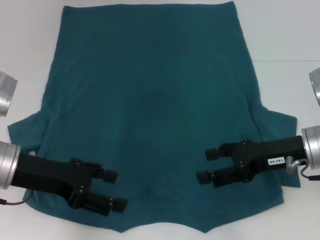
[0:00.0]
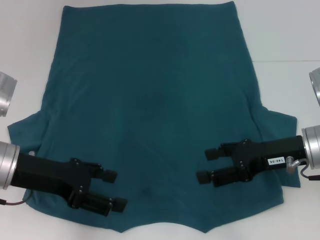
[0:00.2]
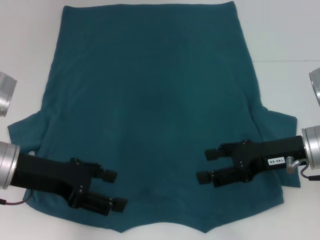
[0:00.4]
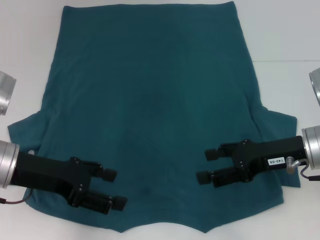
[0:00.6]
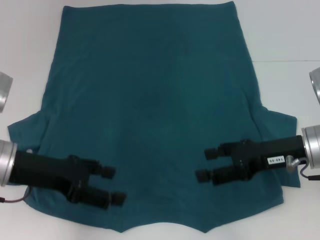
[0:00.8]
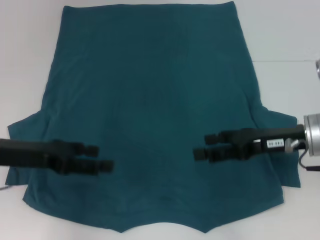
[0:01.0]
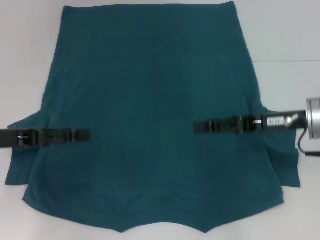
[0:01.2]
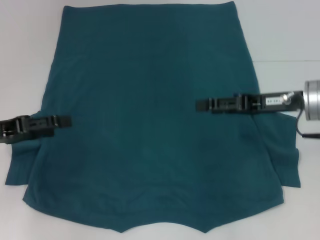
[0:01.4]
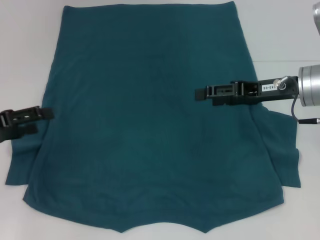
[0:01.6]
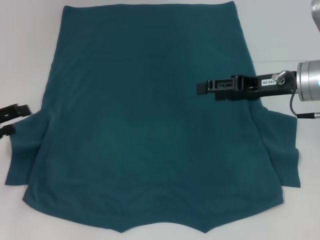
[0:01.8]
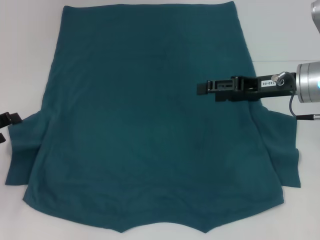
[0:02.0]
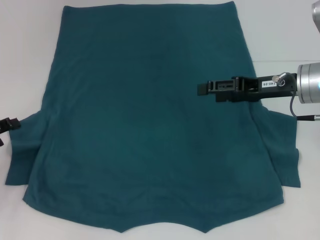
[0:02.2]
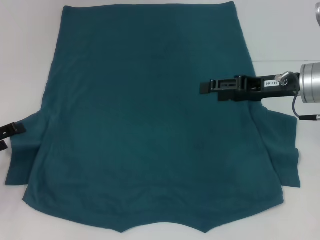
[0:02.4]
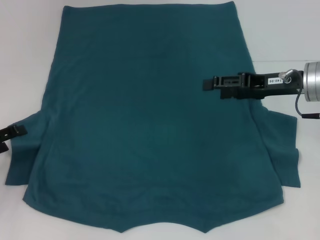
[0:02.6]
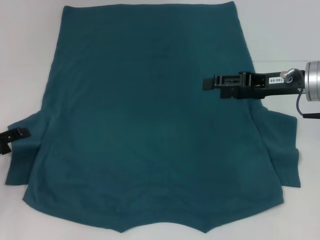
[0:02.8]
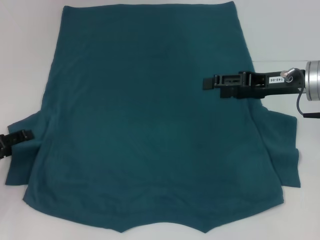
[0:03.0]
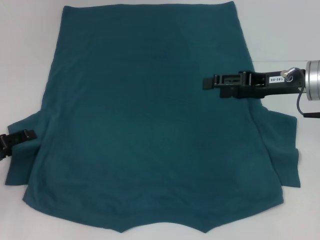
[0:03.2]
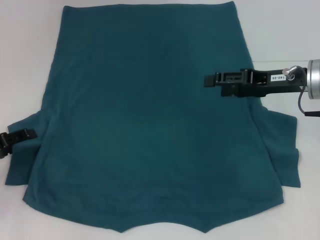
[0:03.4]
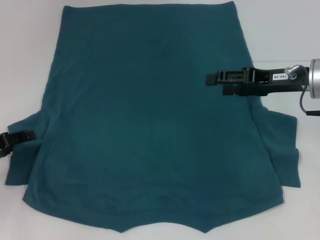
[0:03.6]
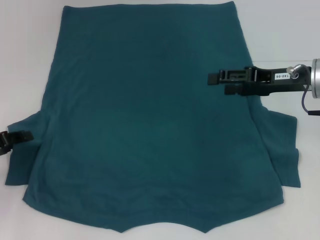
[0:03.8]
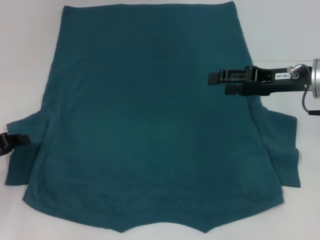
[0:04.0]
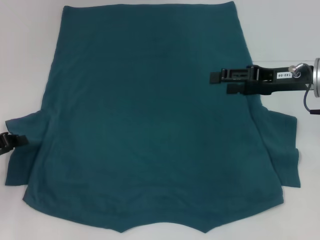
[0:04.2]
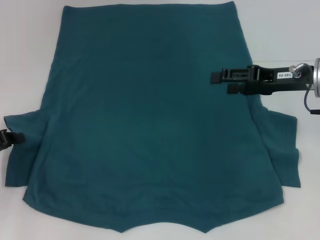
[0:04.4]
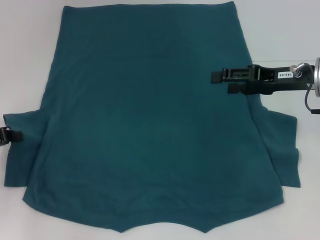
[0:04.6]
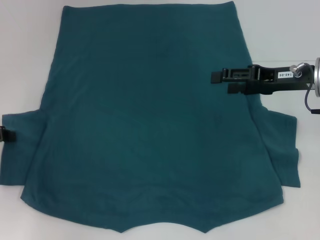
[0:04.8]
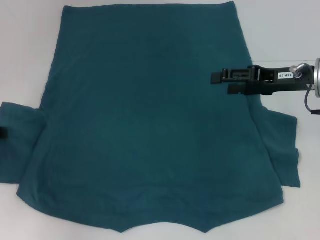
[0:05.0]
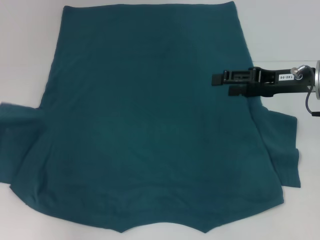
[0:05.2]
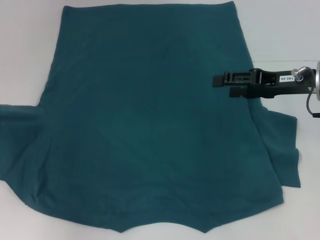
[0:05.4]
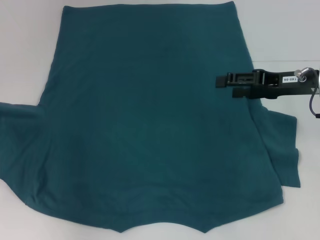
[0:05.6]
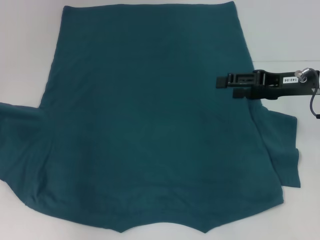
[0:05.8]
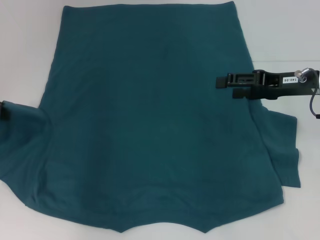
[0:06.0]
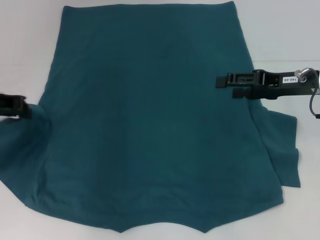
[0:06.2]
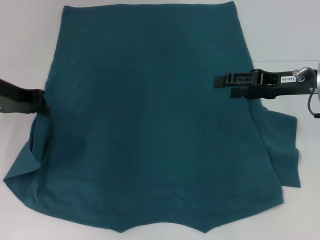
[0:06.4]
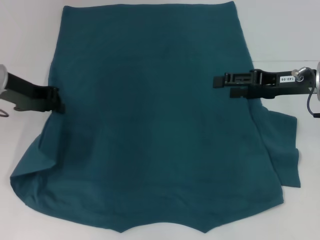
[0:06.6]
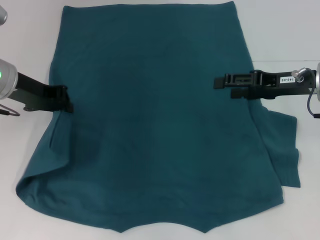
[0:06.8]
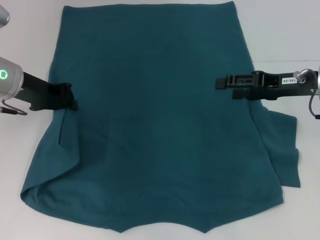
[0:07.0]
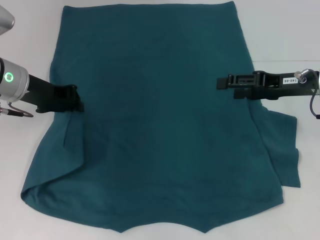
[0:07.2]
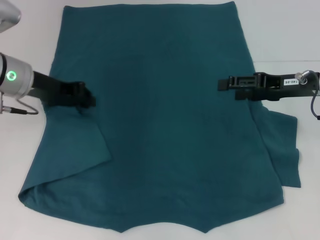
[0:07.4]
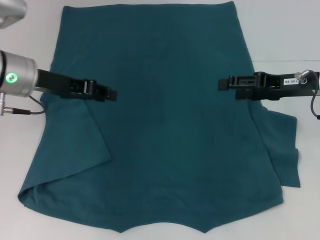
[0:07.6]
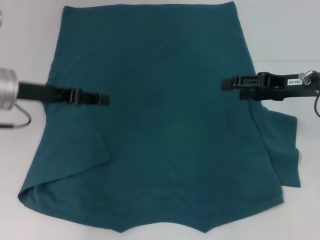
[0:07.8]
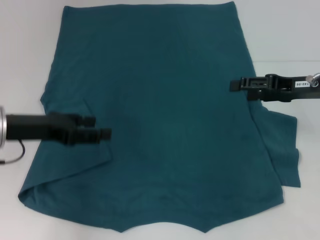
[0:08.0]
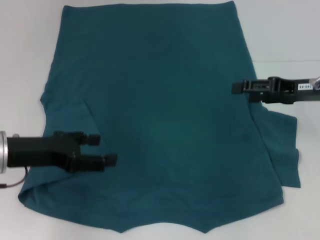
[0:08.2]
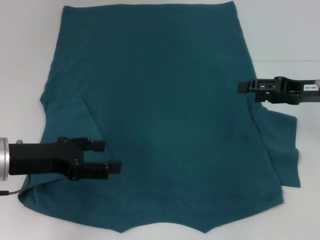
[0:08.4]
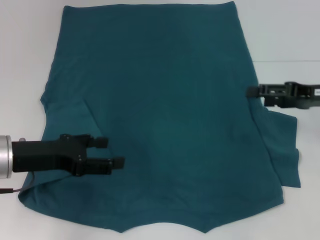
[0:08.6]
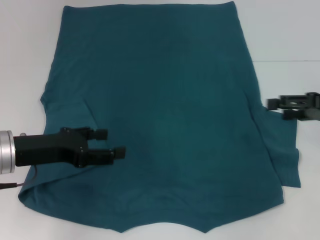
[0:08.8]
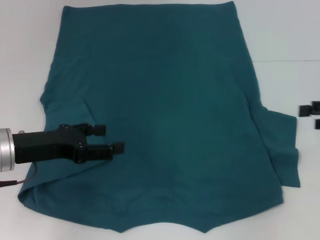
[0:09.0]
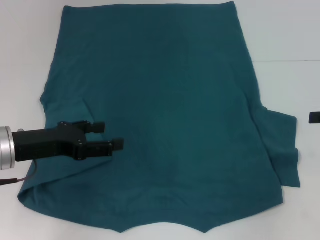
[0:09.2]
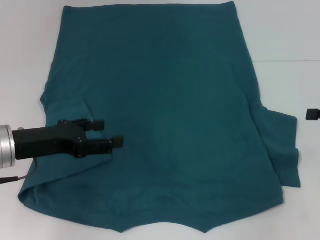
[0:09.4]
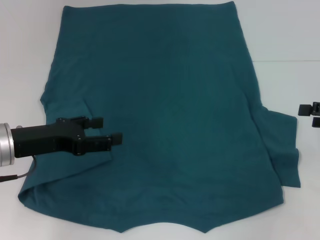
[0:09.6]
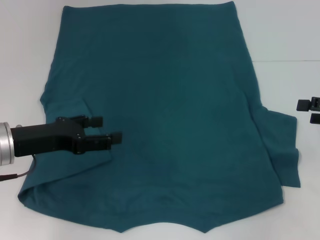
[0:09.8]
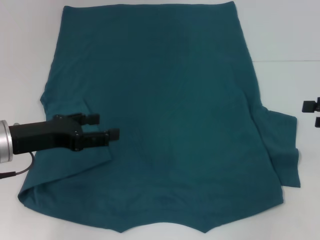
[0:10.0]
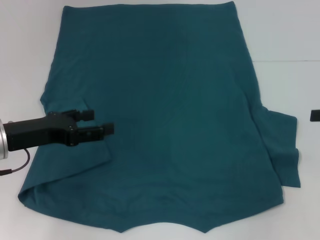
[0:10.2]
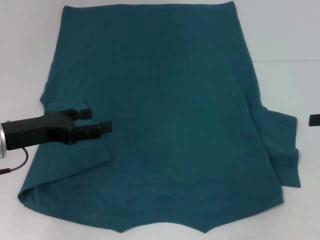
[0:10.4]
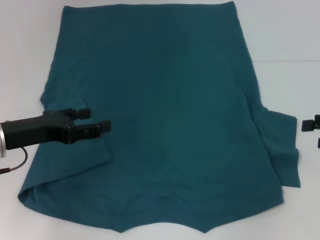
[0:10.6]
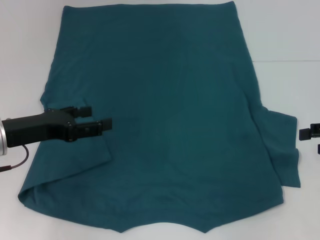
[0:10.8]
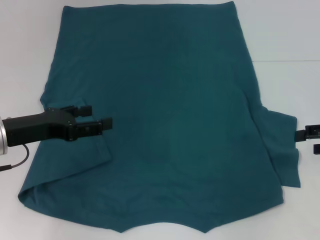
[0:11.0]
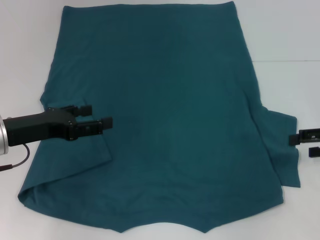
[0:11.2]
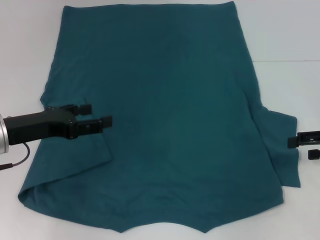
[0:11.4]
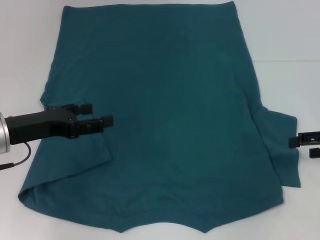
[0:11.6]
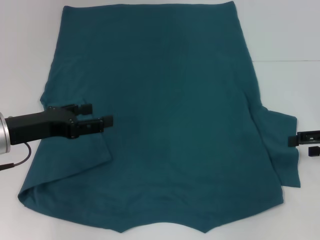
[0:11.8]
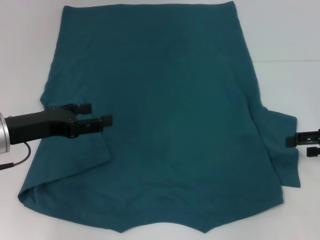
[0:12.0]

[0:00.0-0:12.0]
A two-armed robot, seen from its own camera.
Step, 0:00.0 to 0:07.4: Fold the bottom left sleeve with your left hand.
0:00.0 to 0:01.6: The right gripper moves forward, about 5 cm. The left gripper travels to the left by approximately 10 cm.
0:01.6 to 0:03.0: The left gripper goes about 5 cm downward.
0:03.0 to 0:04.4: The left gripper closes up.
0:04.4 to 0:06.0: The left gripper shifts about 10 cm upward and forward.
0:06.0 to 0:07.6: The left gripper shifts approximately 10 cm to the right.
0:07.6 to 0:09.0: The left gripper shifts roughly 10 cm backward and downward, and opens, while the right gripper heads to the right and backward, covering approximately 15 cm.
0:09.0 to 0:12.0: There are only small adjustments of the grippers.

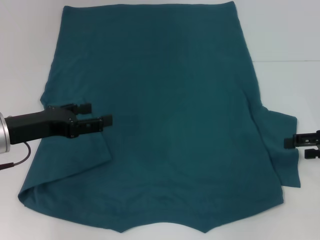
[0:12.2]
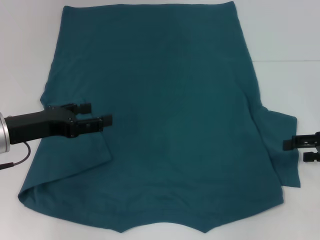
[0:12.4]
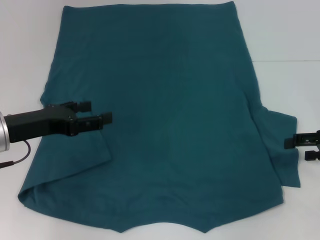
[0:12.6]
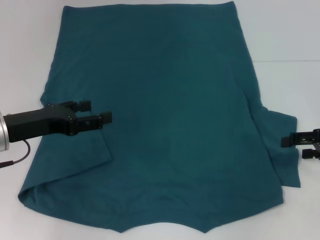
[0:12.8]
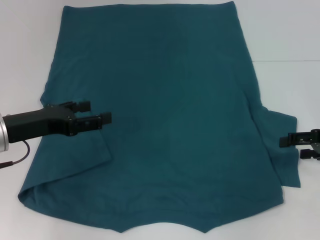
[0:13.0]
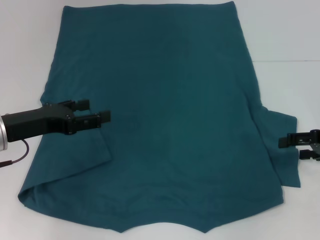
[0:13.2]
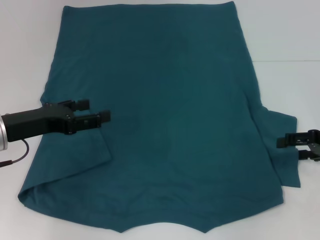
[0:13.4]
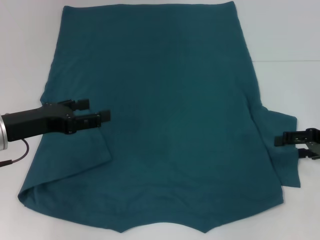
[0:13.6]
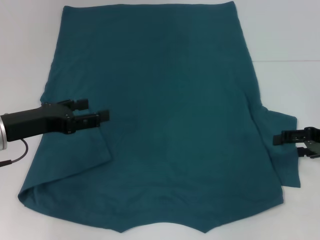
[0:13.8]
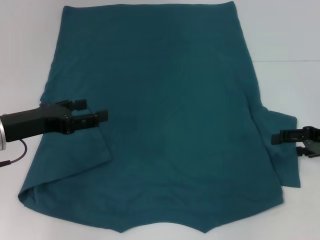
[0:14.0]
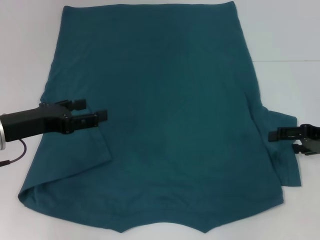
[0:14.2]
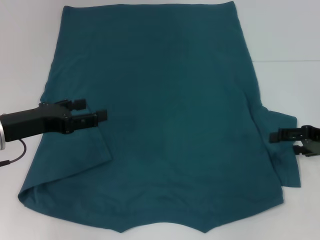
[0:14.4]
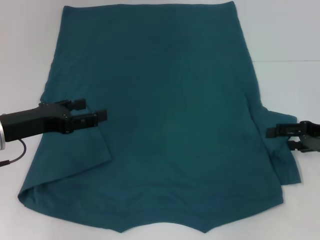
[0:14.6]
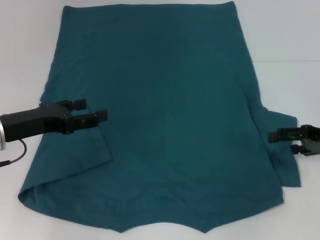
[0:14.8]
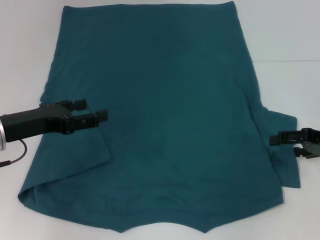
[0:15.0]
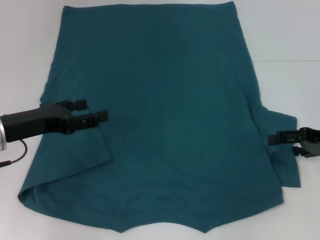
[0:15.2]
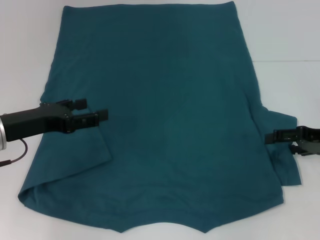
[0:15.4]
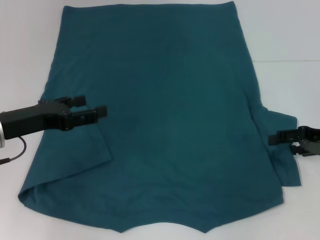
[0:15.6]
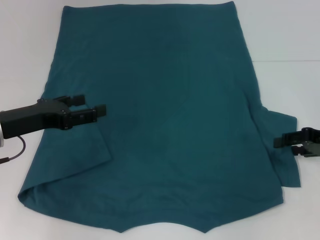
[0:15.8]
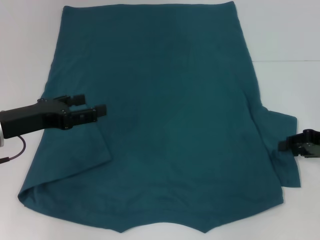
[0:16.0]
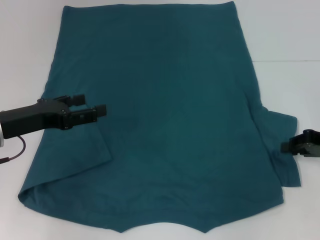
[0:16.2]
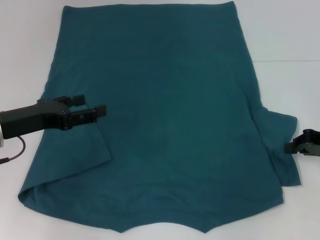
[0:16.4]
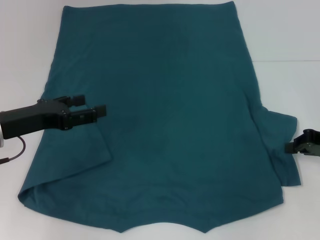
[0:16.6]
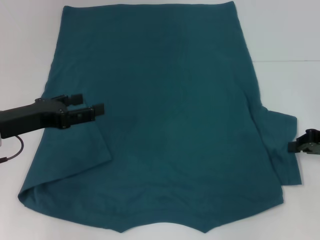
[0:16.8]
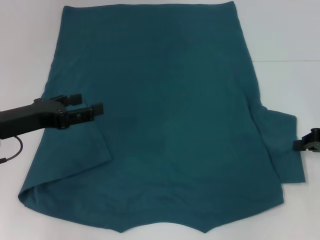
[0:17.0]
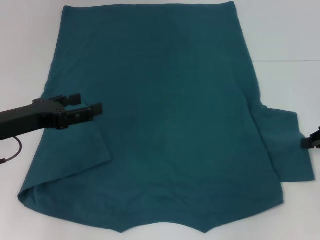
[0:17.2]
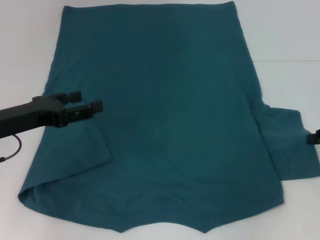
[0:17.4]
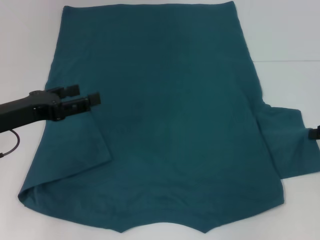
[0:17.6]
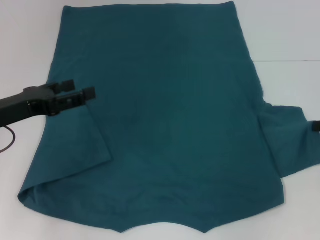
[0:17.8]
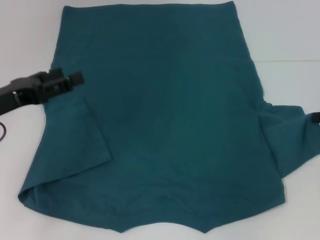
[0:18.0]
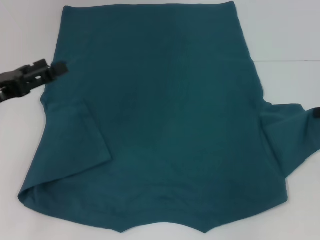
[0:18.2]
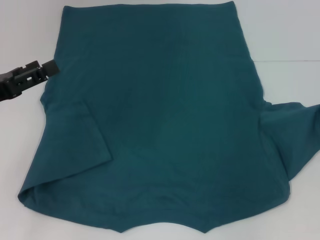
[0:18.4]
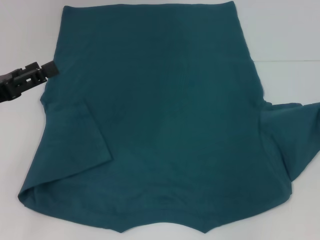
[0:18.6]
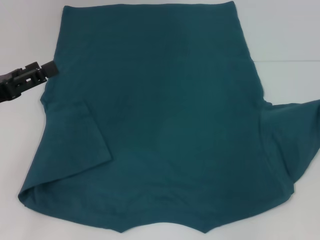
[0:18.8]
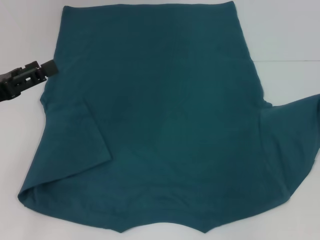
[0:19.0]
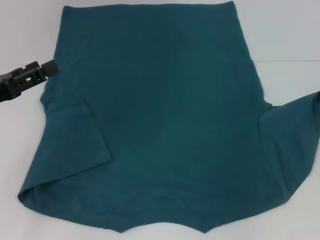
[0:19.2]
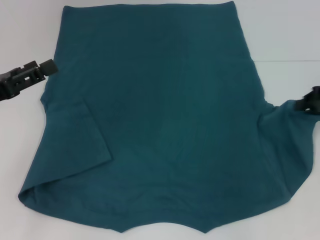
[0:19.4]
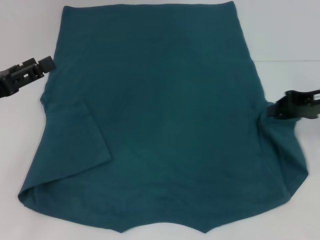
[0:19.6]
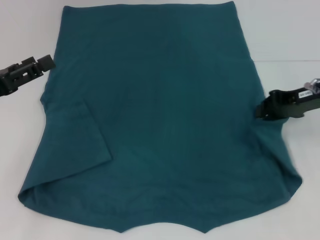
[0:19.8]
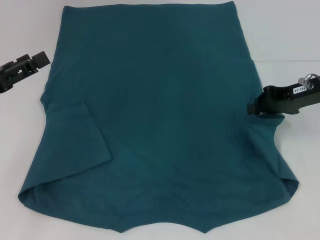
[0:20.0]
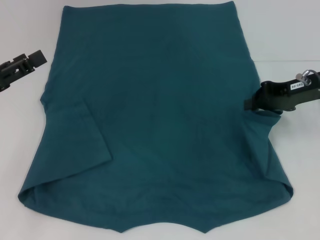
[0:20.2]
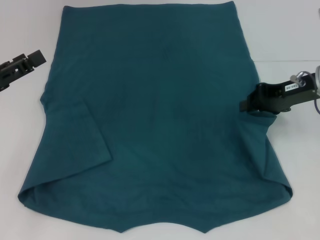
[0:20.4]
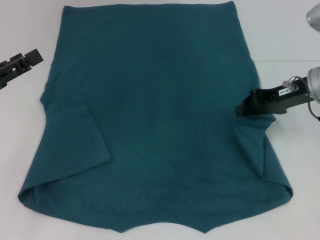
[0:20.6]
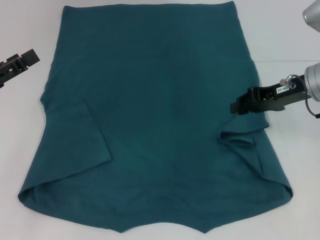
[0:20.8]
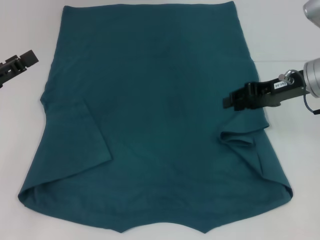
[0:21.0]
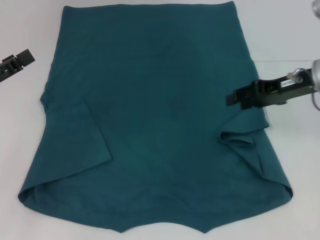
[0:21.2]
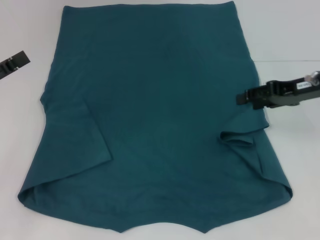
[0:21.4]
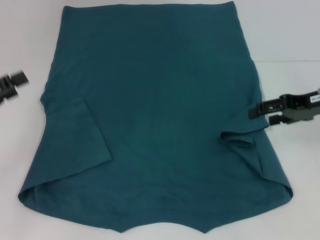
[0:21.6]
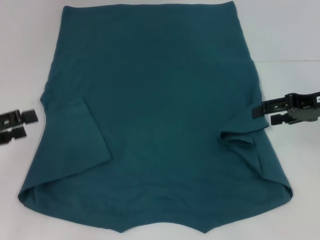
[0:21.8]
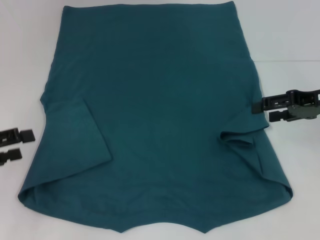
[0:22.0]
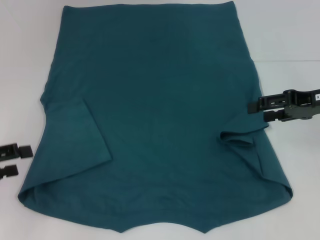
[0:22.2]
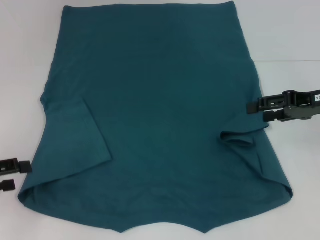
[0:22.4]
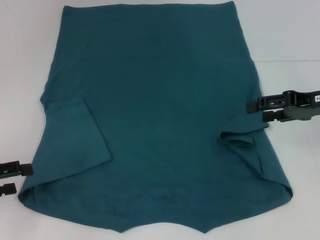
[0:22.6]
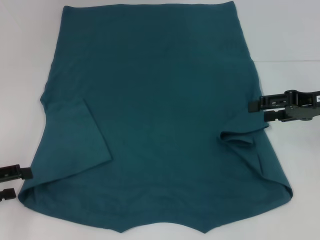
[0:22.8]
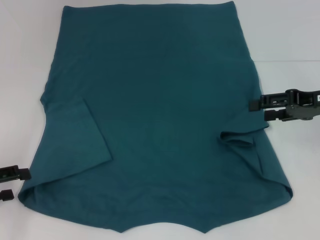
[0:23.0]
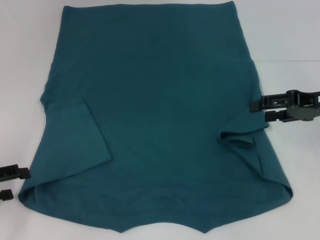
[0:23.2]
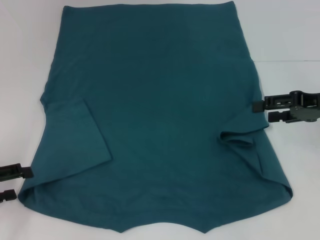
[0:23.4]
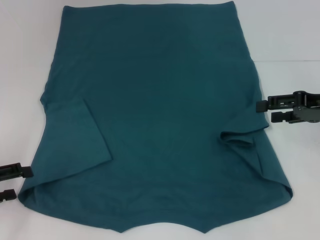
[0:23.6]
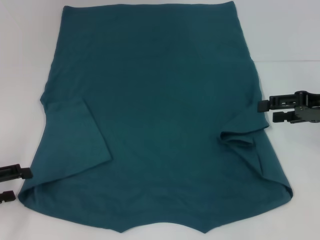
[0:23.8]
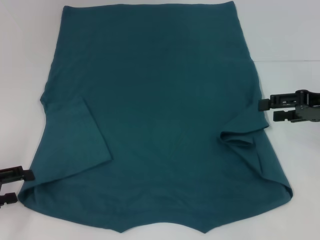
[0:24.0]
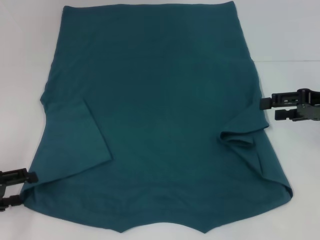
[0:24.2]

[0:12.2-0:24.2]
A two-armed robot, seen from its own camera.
Step, 0:12.2 to 0:20.8: Fold the bottom right sleeve to the right.
0:12.2 to 0:13.8: The grippers stay close to where they were, moving slightly.
0:15.2 to 0:16.6: The right gripper closes up.
0:16.6 to 0:18.2: The right gripper ends up about 5 cm from where it was.
0:18.2 to 0:19.8: The right gripper travels to the left by about 10 cm.
0:19.8 to 0:21.2: The right gripper opens.
0:21.2 to 0:22.6: The right gripper moves some 5 cm, and opens up, while the left gripper changes place by roughly 5 cm.
0:22.6 to 0:24.2: The grippers make only small movements.
